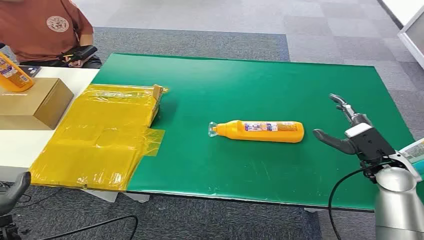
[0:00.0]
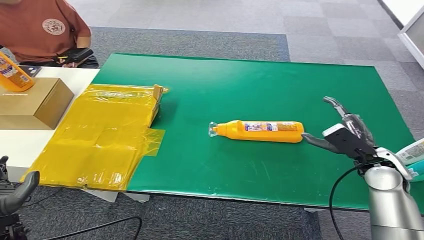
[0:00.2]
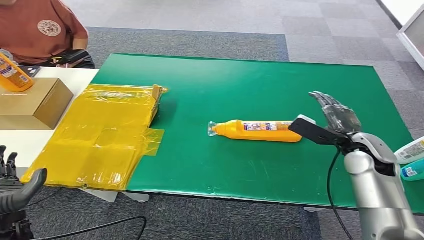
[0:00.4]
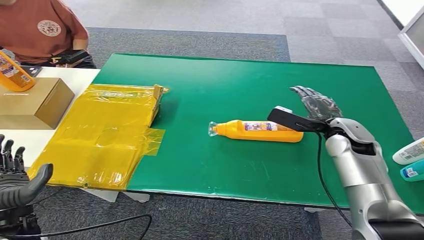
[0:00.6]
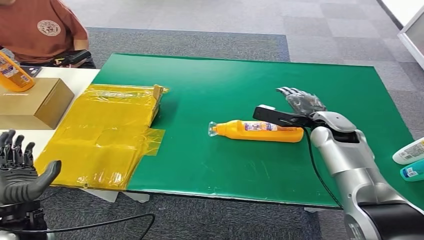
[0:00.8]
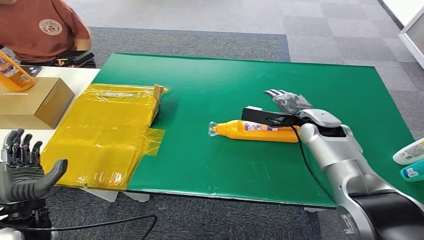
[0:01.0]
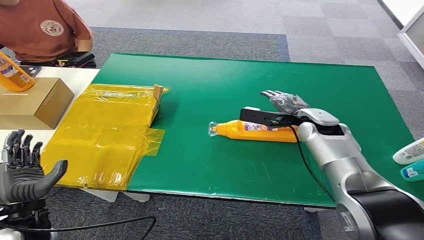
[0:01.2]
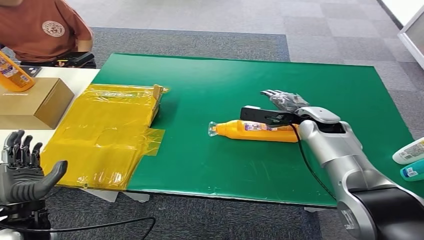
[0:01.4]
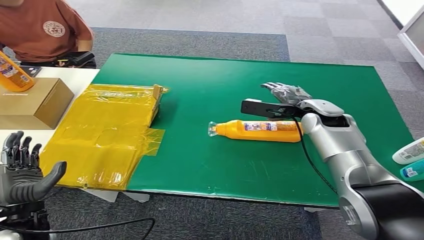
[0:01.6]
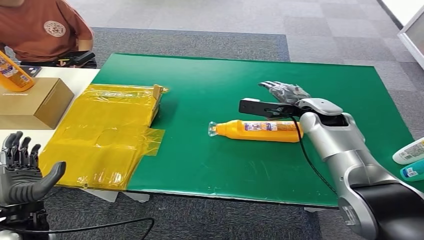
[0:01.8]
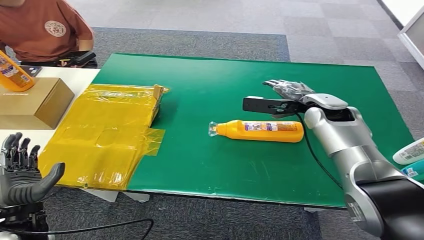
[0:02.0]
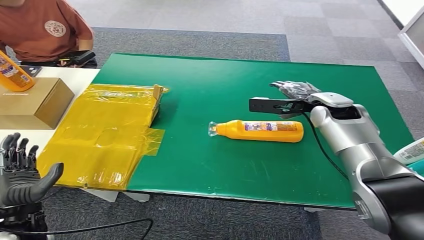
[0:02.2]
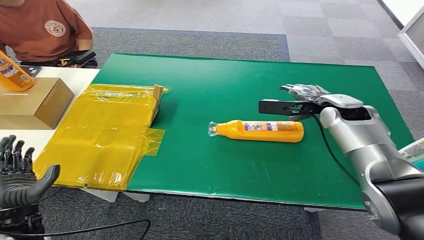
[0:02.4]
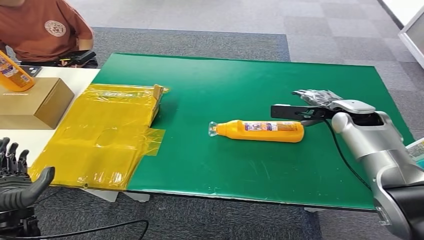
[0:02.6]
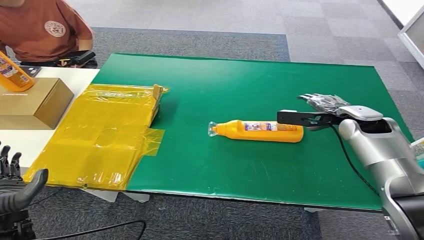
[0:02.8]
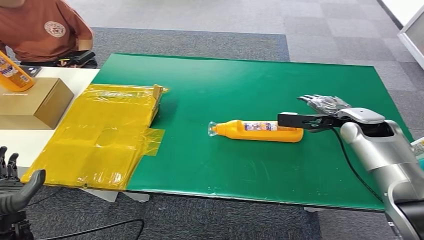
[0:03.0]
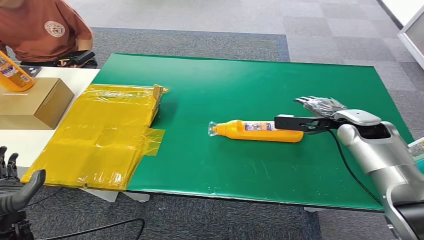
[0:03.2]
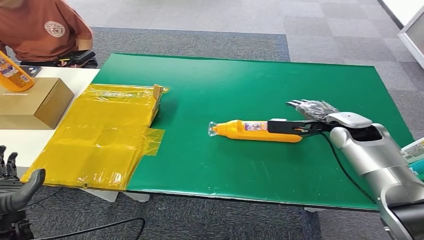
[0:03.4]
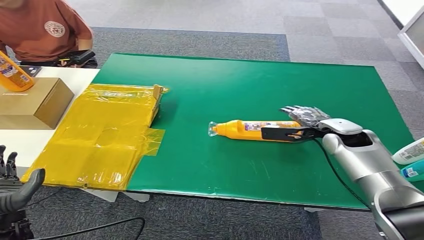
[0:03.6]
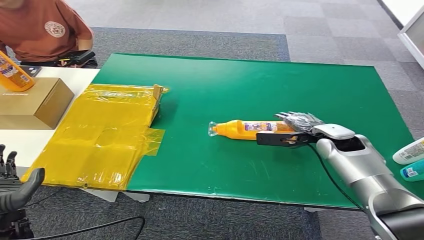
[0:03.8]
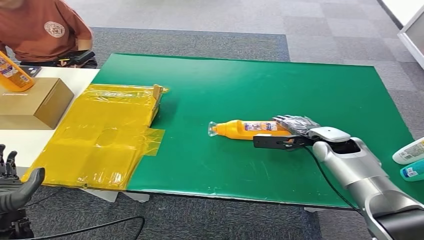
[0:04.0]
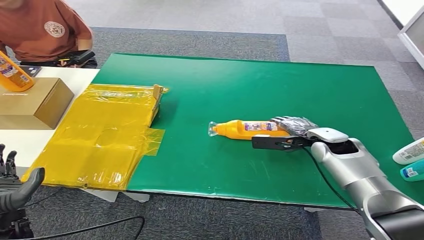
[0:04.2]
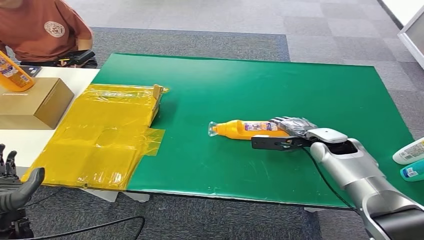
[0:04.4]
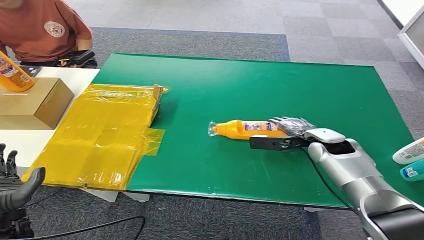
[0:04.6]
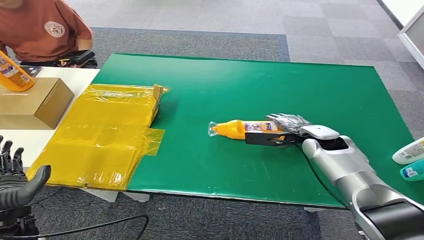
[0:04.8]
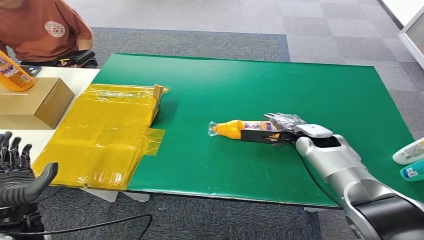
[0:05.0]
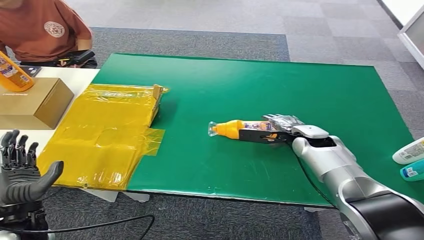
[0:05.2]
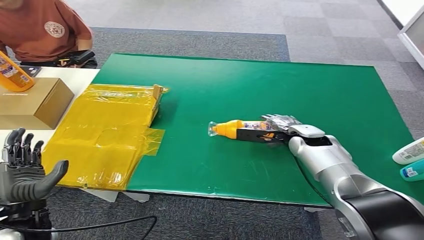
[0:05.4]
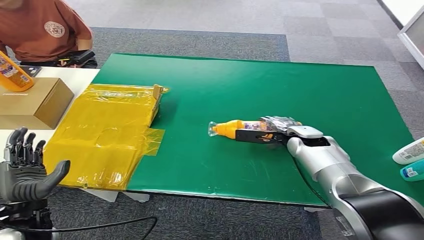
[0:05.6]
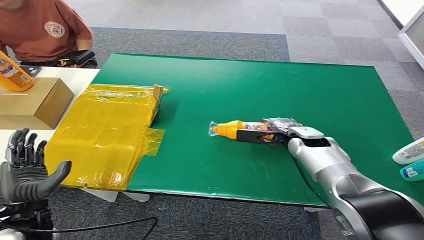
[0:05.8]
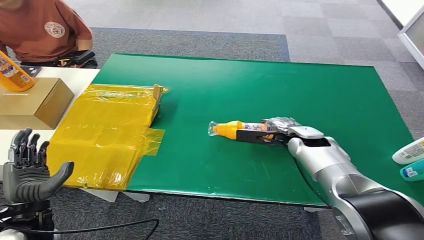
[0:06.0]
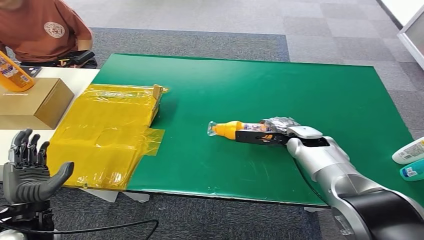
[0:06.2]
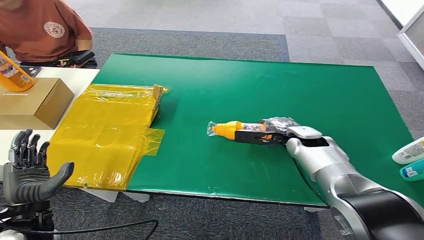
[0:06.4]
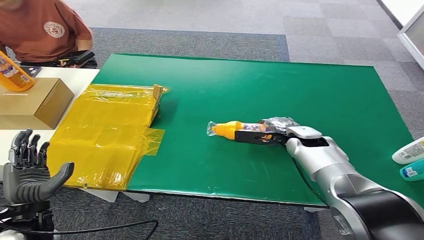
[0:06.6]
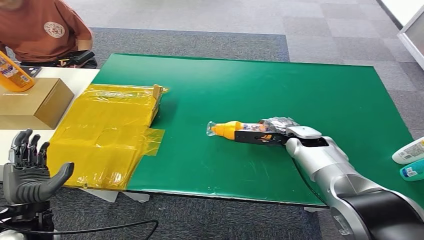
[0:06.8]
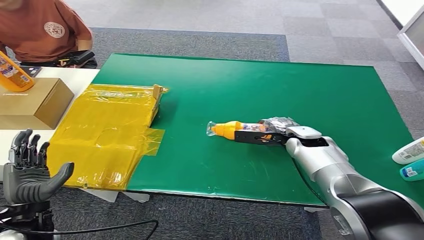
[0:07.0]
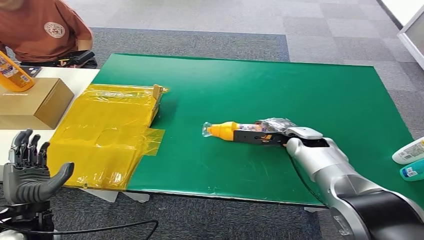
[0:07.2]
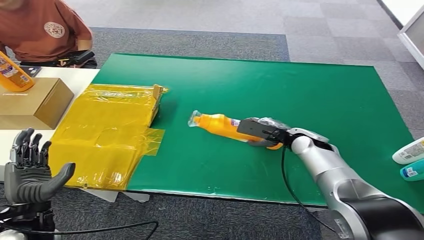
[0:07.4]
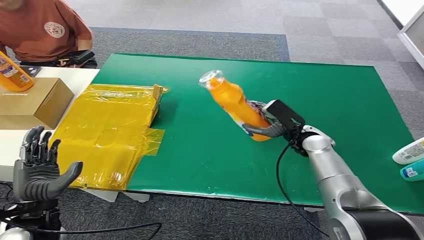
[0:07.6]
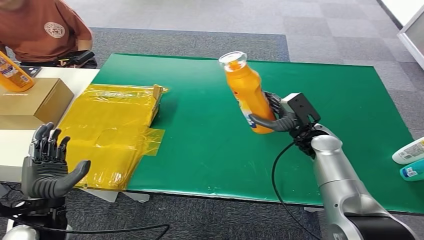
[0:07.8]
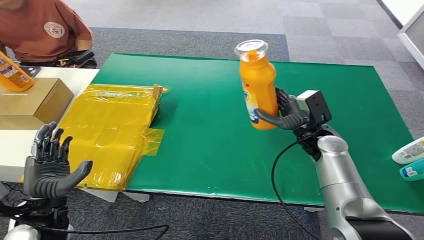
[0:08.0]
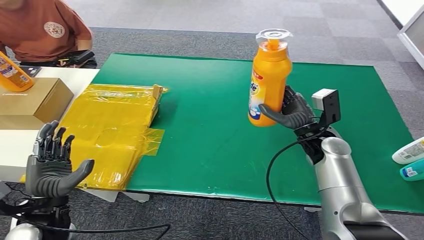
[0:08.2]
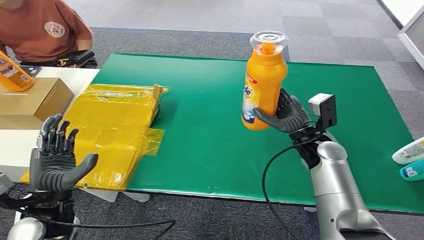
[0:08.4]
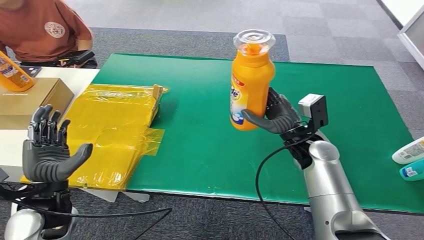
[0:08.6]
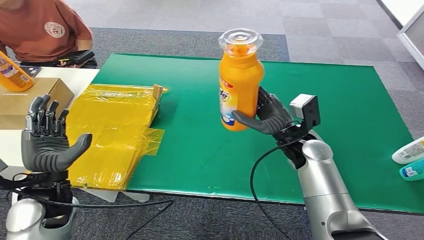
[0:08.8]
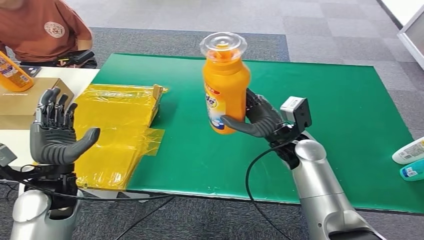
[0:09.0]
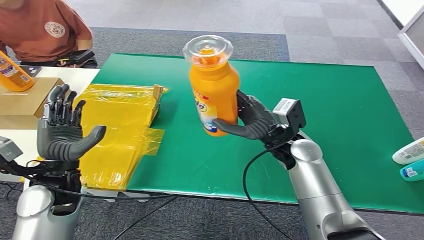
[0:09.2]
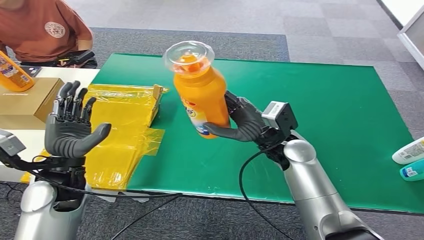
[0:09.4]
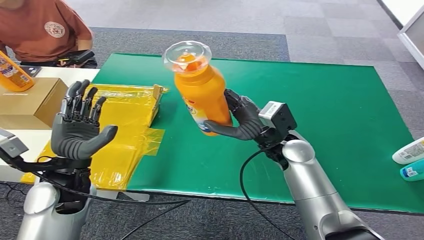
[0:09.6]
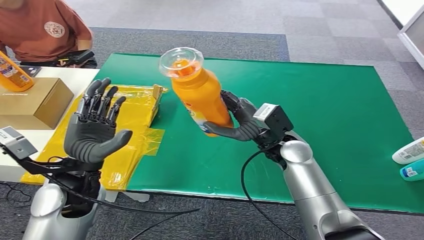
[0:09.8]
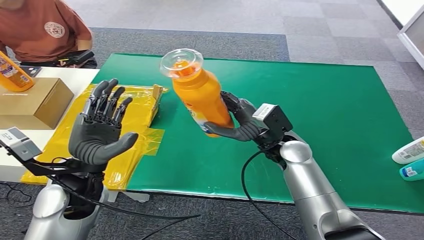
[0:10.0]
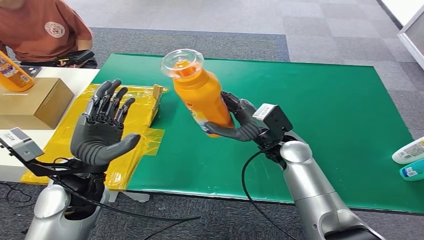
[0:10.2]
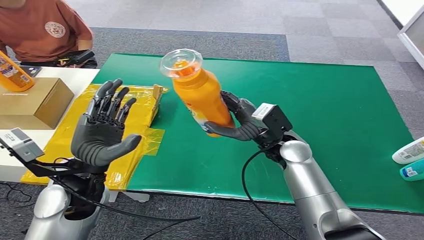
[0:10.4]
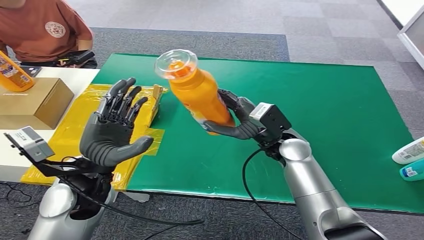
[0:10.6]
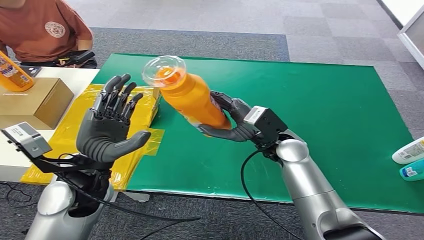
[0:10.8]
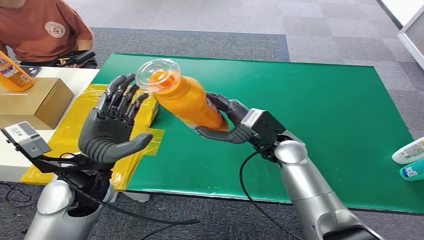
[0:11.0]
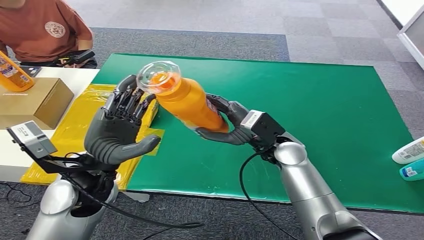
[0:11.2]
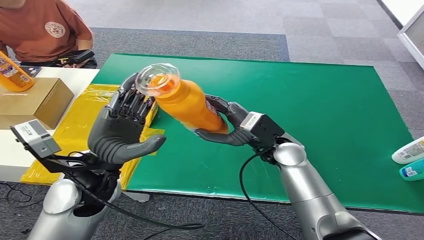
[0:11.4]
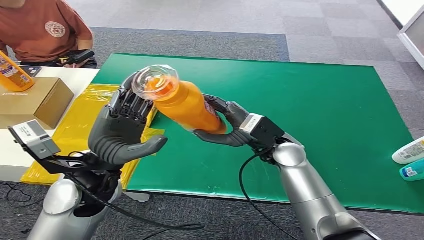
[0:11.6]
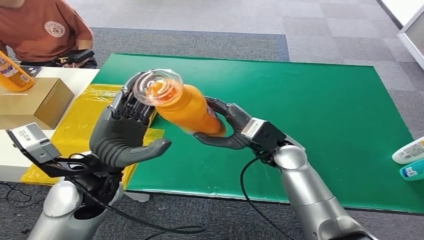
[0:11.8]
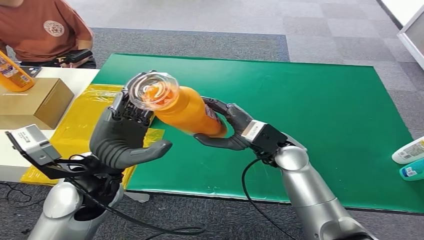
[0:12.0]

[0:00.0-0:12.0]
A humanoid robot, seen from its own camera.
Step, 0:00.0 to 0:08.0: Pick up the bottle from the table.
0:01.6 to 0:03.0: The right hand is displaced to the right by roughly 10 cm.
0:03.0 to 0:04.4: The right hand shifts roughly 10 cm downward and to the left.
0:04.4 to 0:06.0: The hands move only a little.

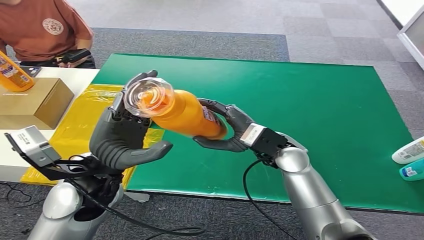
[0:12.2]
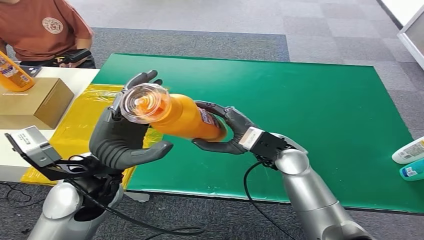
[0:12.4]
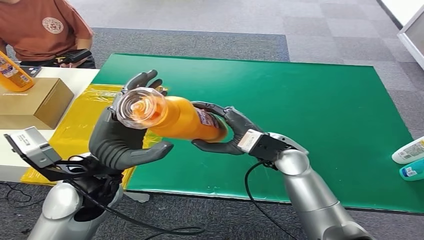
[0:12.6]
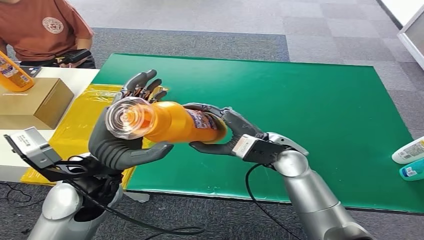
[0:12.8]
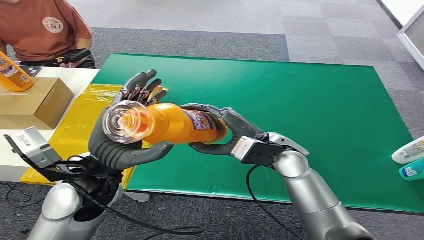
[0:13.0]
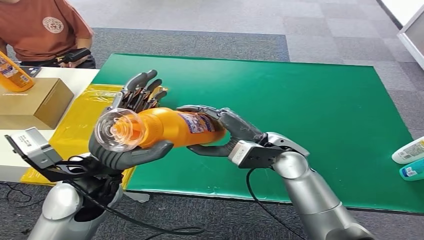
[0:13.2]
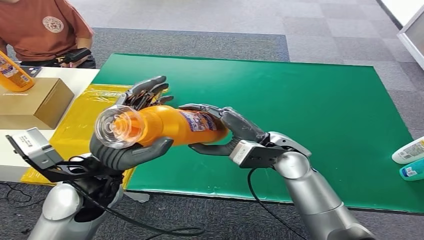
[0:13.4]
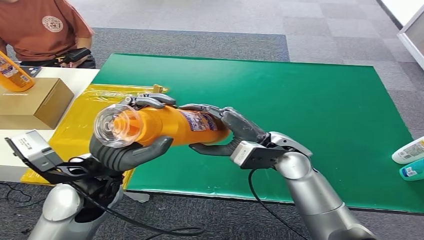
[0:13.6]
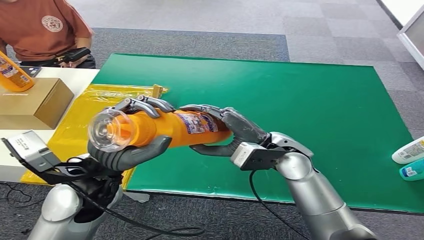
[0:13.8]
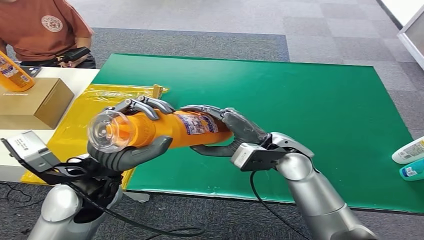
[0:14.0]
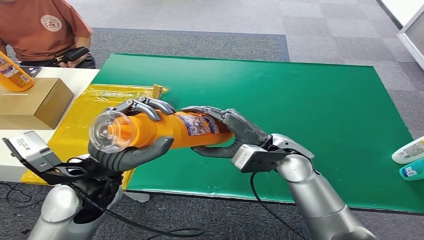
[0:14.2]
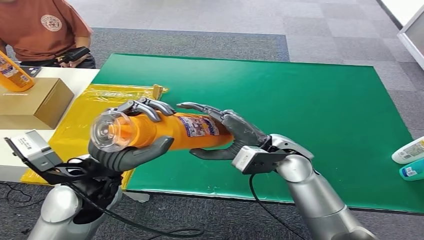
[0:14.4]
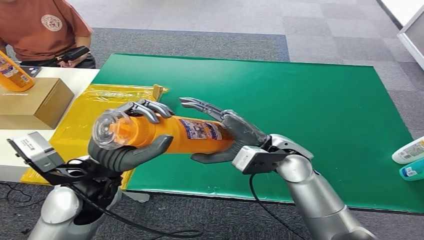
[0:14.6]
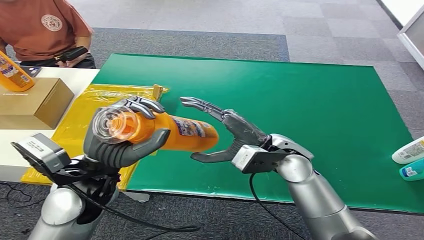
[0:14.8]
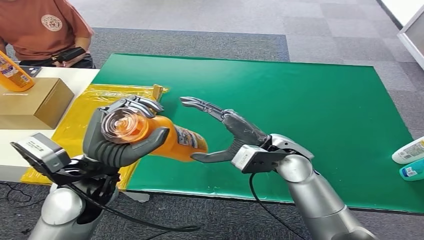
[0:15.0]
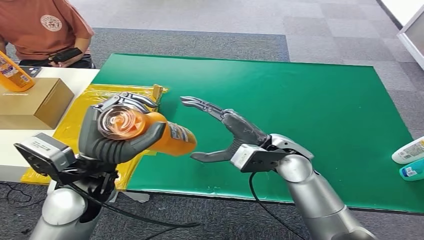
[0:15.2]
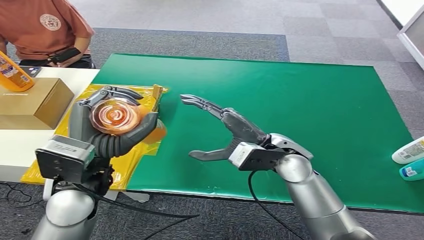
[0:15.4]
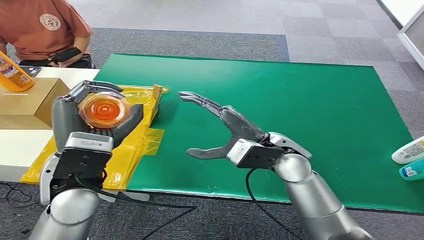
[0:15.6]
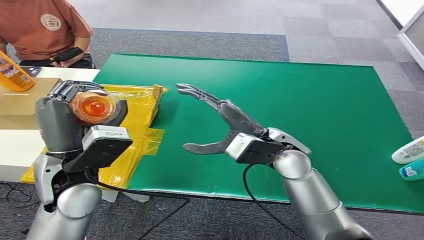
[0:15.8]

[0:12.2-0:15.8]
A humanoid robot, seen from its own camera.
Step, 0:12.2 to 0:15.6: Turn the bottle to the front side.
0:12.2 to 0:14.0: There are only small adjustments of the hands.

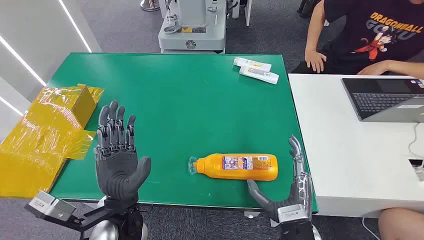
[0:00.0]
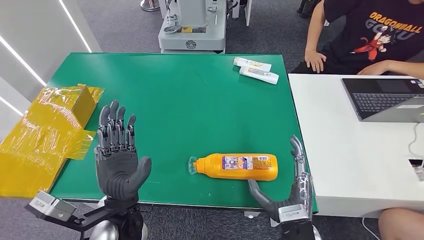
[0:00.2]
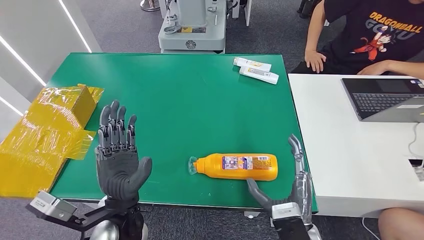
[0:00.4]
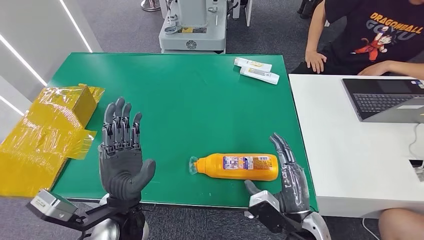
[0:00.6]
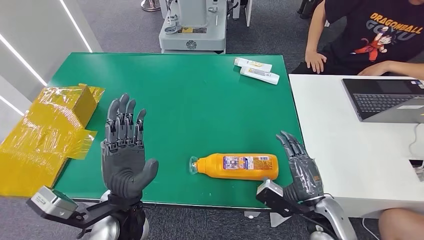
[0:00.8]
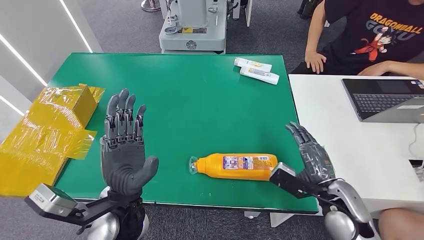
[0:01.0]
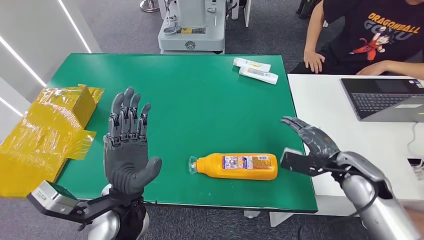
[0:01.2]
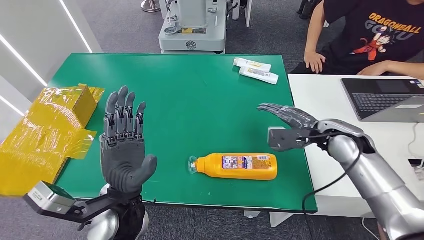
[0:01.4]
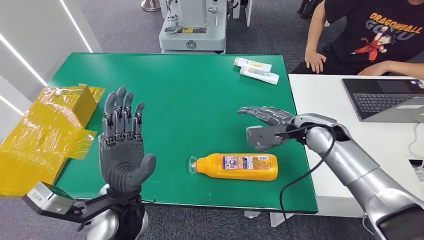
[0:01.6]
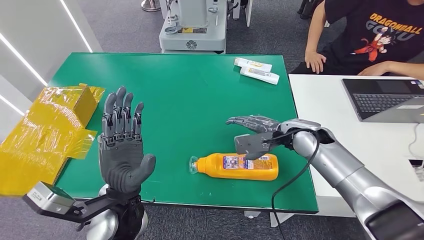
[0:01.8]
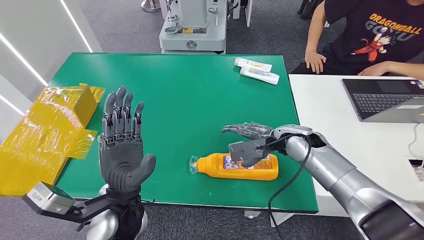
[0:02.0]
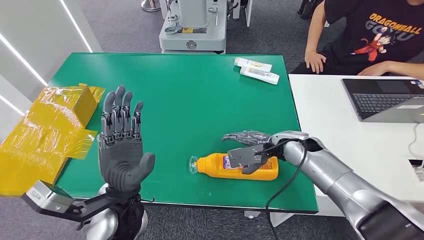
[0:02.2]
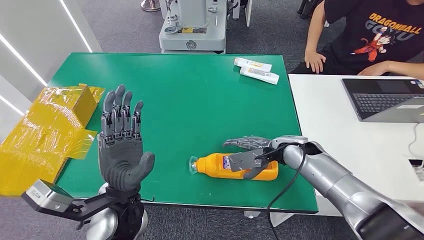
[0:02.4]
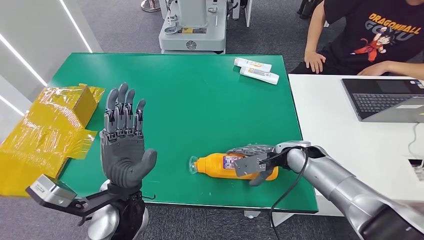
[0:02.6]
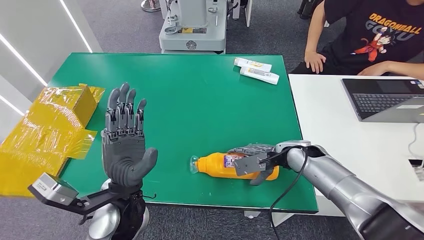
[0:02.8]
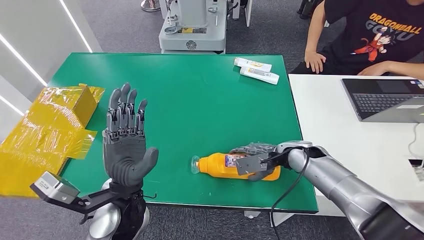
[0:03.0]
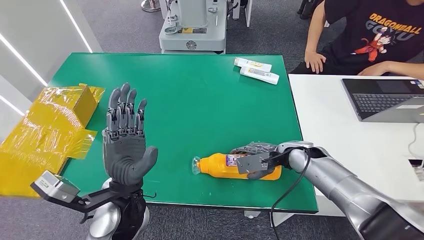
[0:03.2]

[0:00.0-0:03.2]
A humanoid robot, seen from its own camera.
0:01.6 to 0:03.2: The right hand goes some 10 cm downward.
